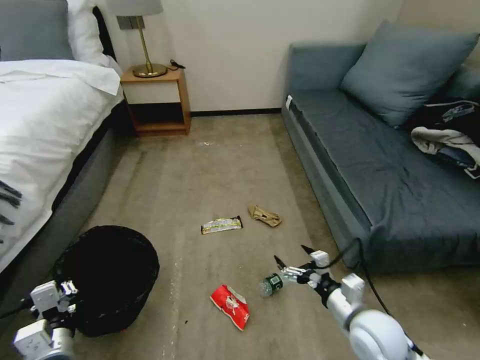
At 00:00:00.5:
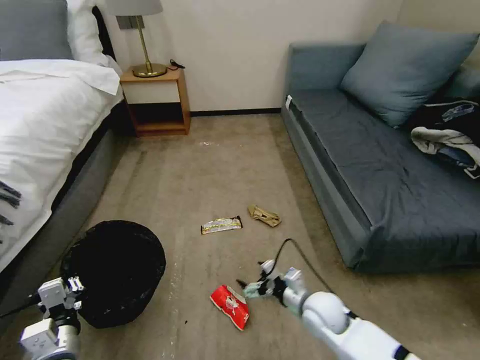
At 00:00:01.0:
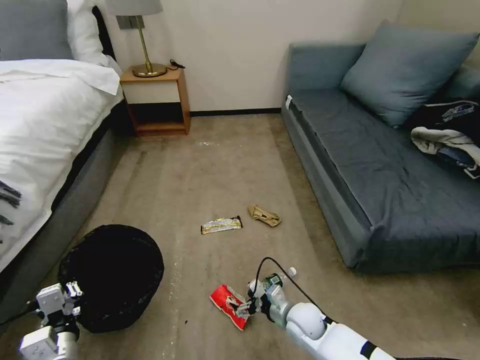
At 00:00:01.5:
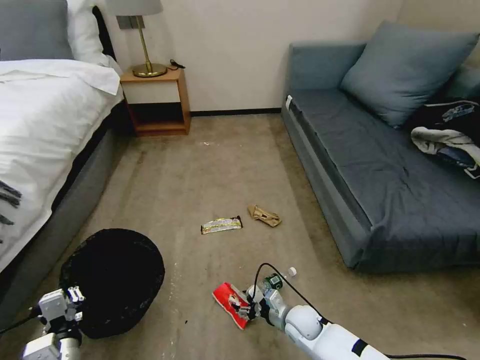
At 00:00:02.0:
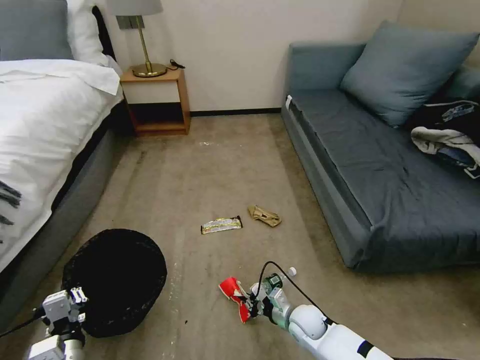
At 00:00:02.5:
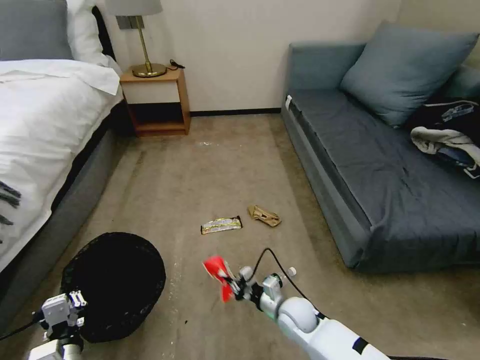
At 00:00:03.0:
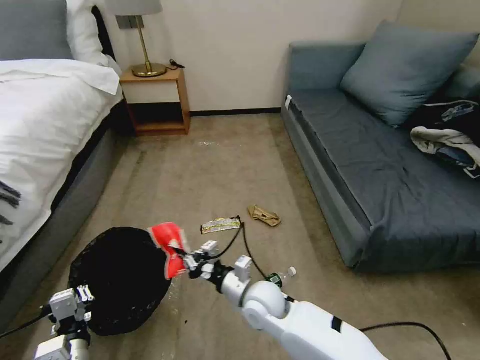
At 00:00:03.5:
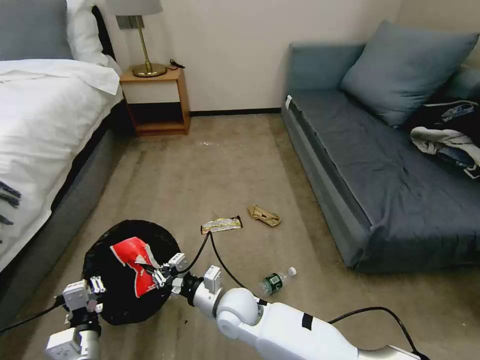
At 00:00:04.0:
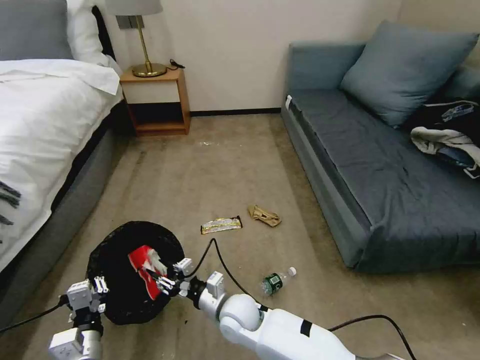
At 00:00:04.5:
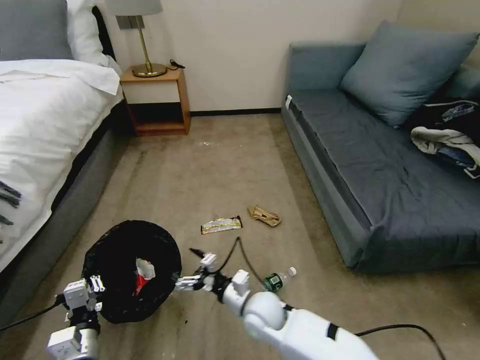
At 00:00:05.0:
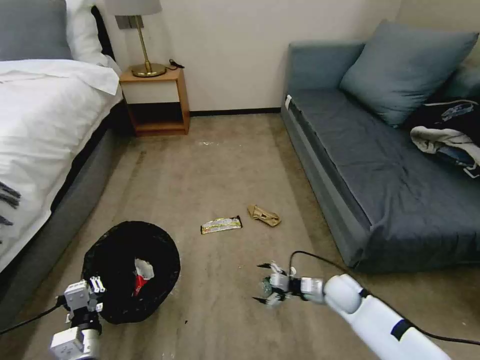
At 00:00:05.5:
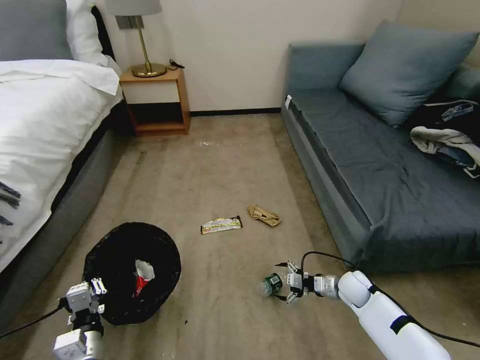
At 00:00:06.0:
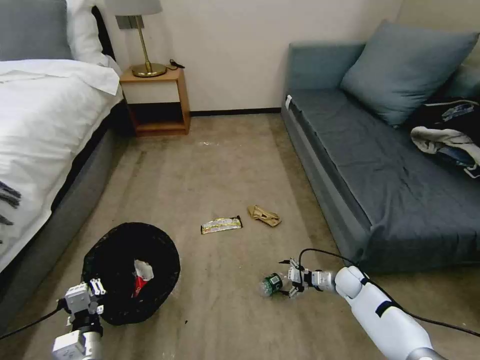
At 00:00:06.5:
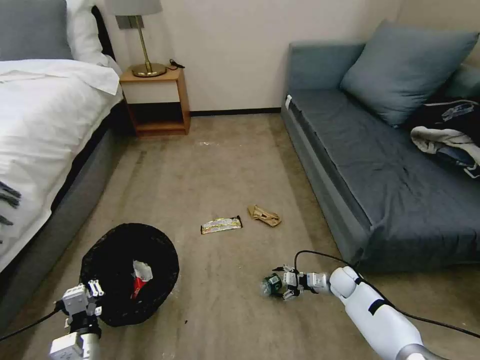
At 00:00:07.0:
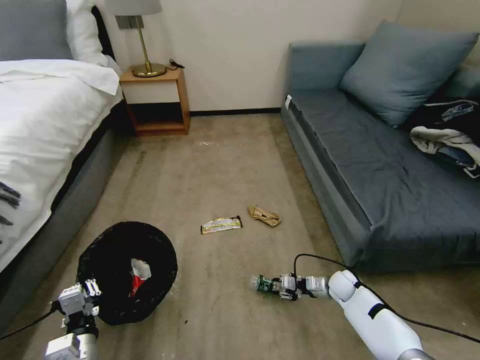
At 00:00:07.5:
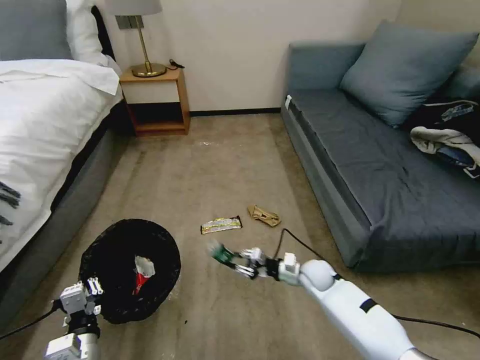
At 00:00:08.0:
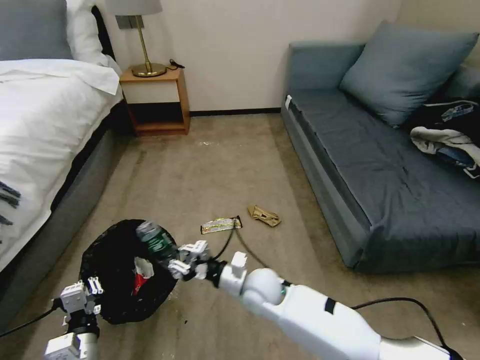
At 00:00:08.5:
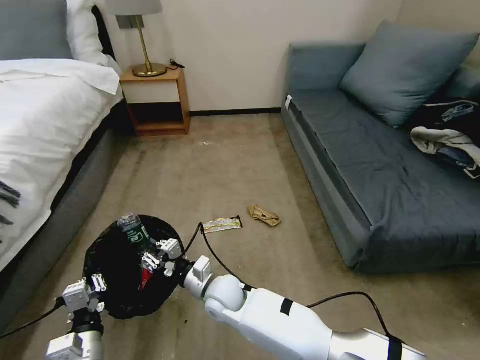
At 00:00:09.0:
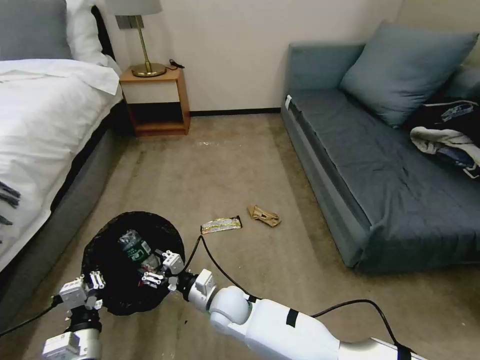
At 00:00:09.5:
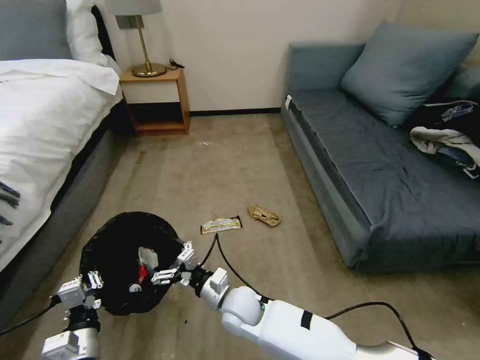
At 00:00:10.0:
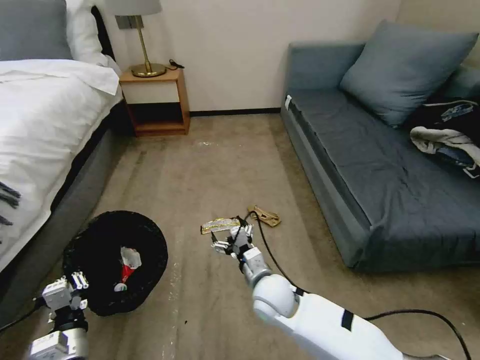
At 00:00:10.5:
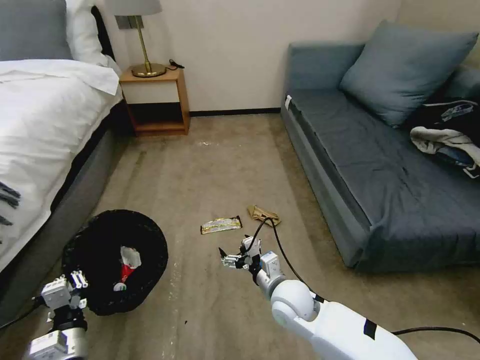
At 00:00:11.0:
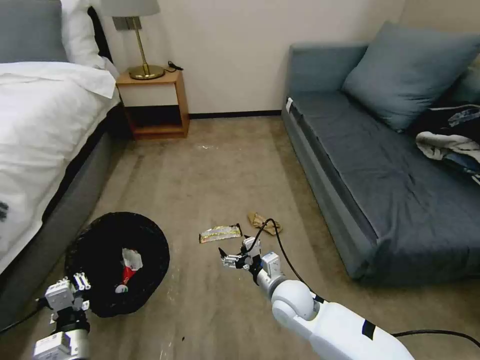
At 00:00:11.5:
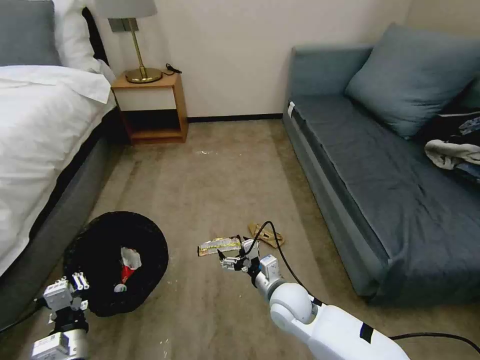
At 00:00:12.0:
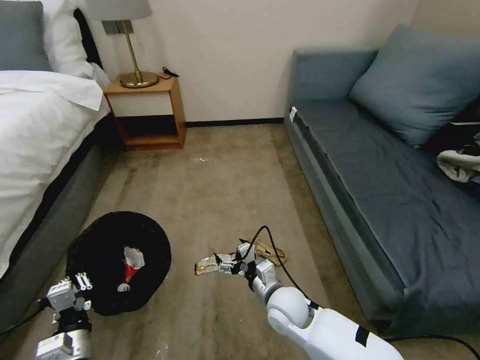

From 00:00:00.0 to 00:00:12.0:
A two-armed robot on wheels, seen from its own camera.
Task of the whole recording: Pick up the trash bin, then pick up the garbage on the floor and place it into the trash bin.
From 00:00:00.0 to 00:00:02.0: The right gripper goes some 20 cm downward and to the left, and closes.
From 00:00:02.0 to 00:00:04.0: The right gripper travels to the left and upward by some 20 cm.
From 00:00:04.0 to 00:00:06.0: The right gripper heads to the right, covering some 35 cm, and opens.
From 00:00:06.0 to 00:00:08.0: The right gripper goes about 35 cm to the left and upward, and closes.
From 00:00:08.0 to 00:00:10.0: The right gripper travels to the left and back again, roughly 10 cm each way, and opens its fingers.

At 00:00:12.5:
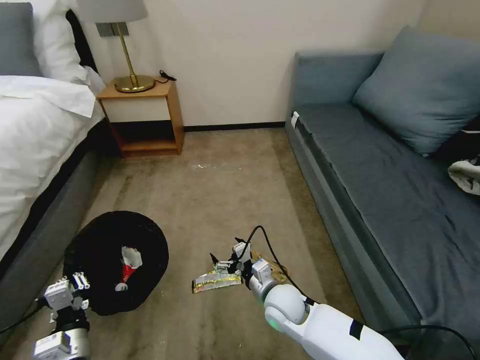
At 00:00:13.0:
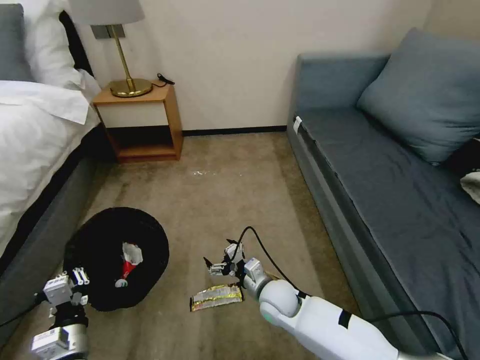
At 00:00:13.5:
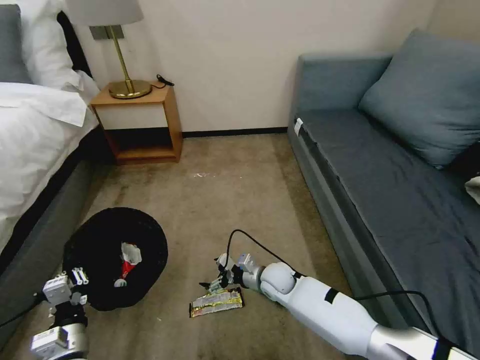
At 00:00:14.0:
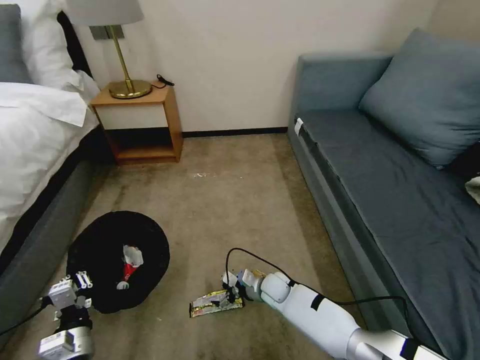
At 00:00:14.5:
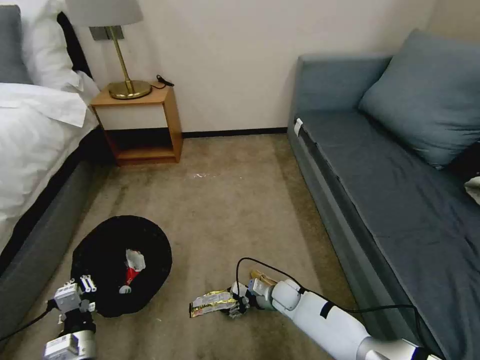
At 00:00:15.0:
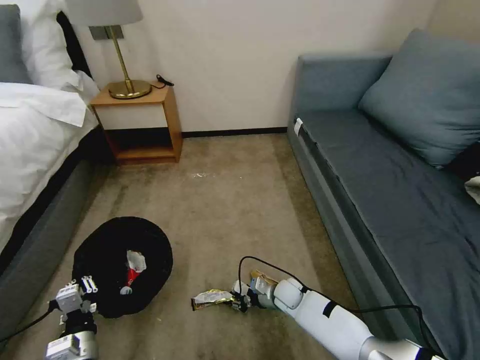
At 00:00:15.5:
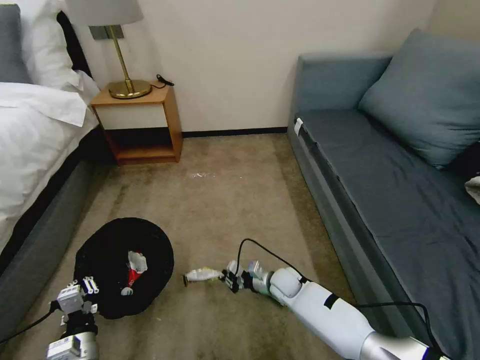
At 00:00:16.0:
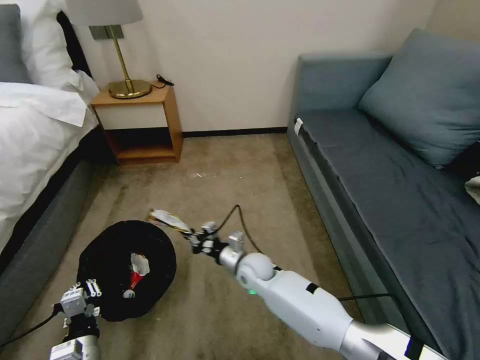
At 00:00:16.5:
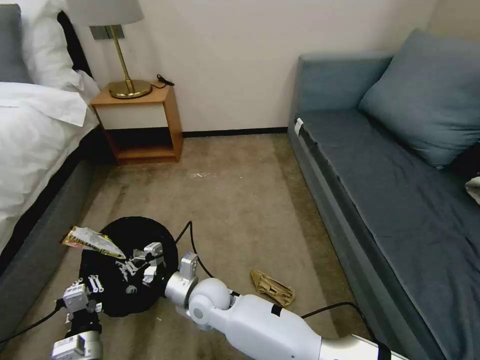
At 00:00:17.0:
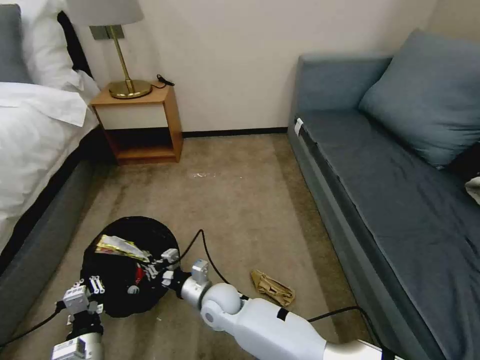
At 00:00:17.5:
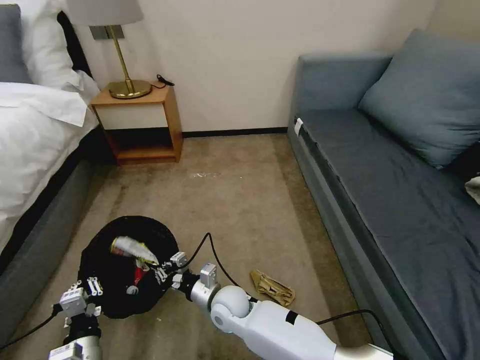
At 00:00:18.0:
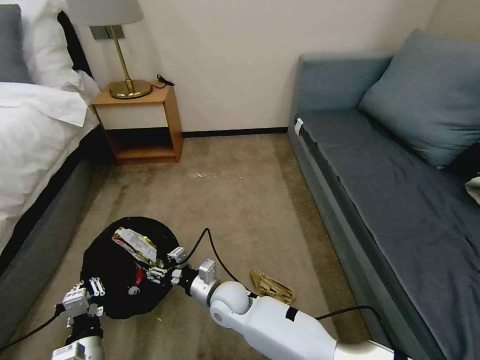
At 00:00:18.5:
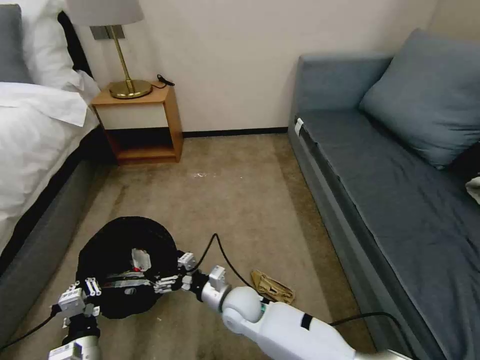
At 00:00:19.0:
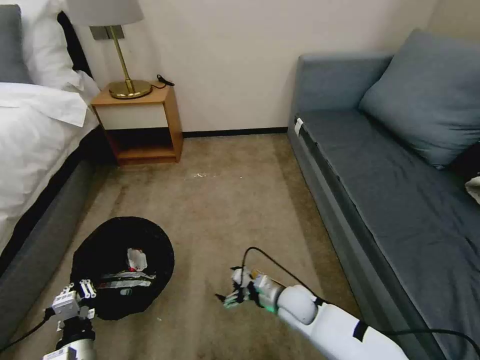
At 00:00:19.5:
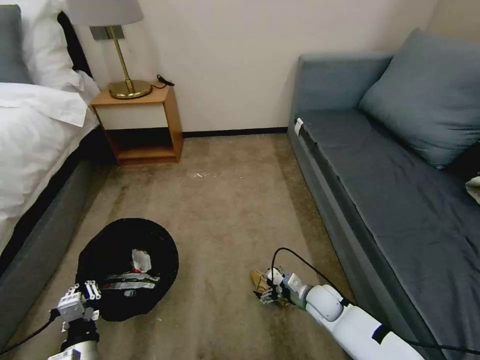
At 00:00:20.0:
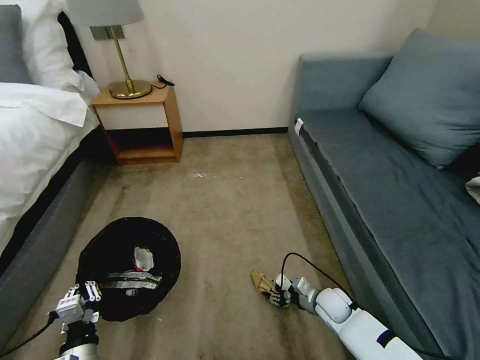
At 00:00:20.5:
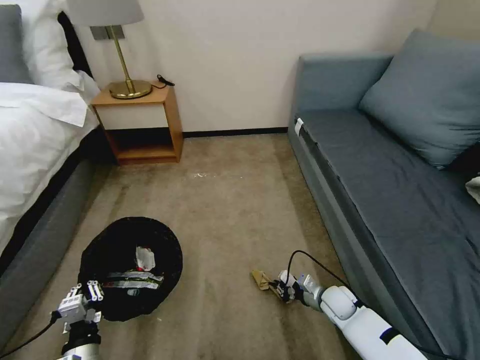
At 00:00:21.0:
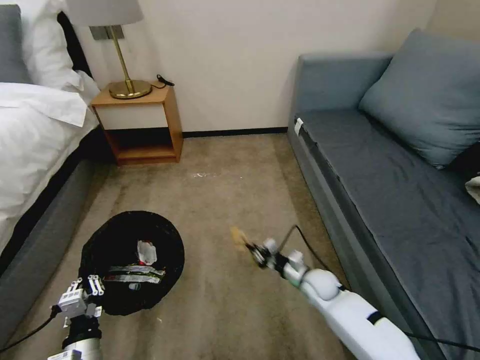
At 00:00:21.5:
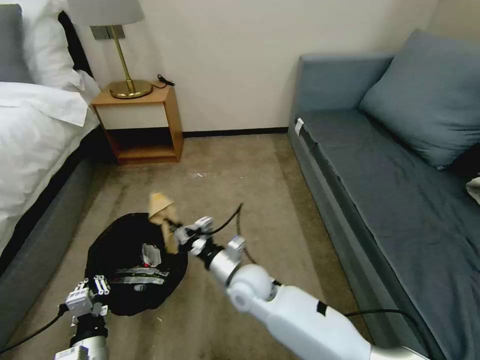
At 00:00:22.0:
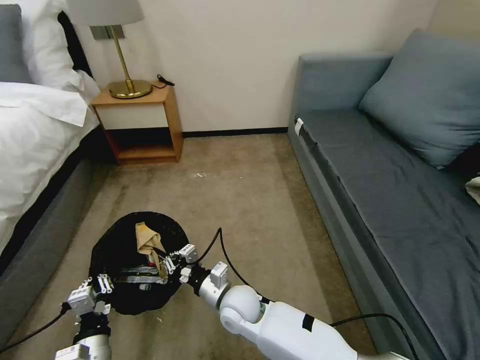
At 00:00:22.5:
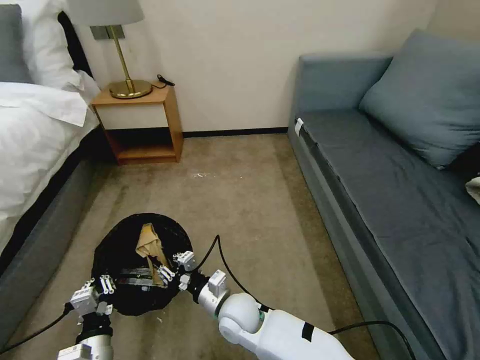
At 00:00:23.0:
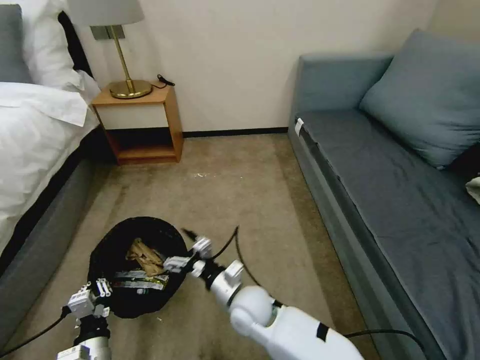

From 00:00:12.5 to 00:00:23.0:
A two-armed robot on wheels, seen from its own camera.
Task of the whole recording: Pick up the trash bin, then pick up the garbage on the floor and place it into the trash bin.
From 00:00:12.5 to 00:00:14.5: The right gripper goes approximately 15 cm downward and forward.
From 00:00:14.5 to 00:00:16.5: The right gripper moves to the left and upward, about 30 cm, and closes its fingers.
From 00:00:16.5 to 00:00:19.0: The right gripper moves to the right, about 20 cm, and opens its fingers.
From 00:00:19.0 to 00:00:21.0: The right gripper goes about 10 cm to the right and forward, and closes up.
From 00:00:21.0 to 00:00:23.0: The right gripper is displaced to the left, backward and upward by approximately 25 cm, and opens its fingers.

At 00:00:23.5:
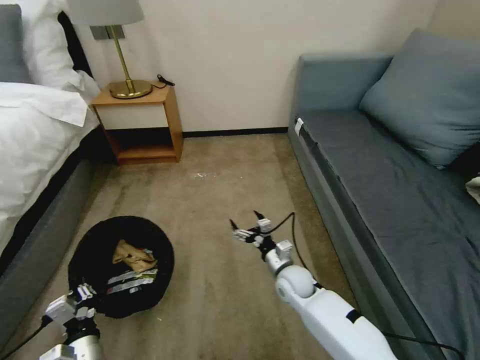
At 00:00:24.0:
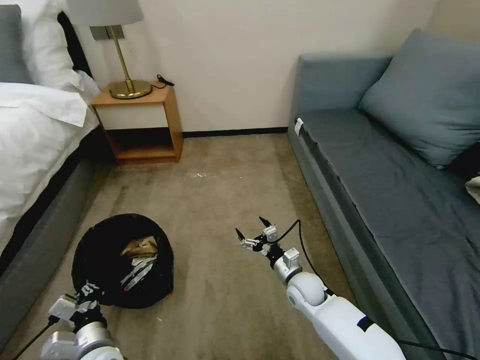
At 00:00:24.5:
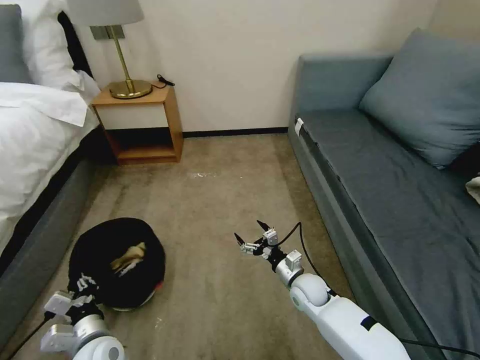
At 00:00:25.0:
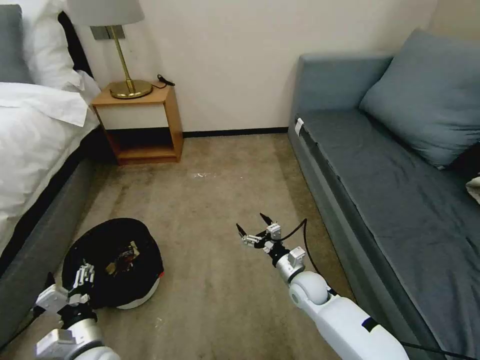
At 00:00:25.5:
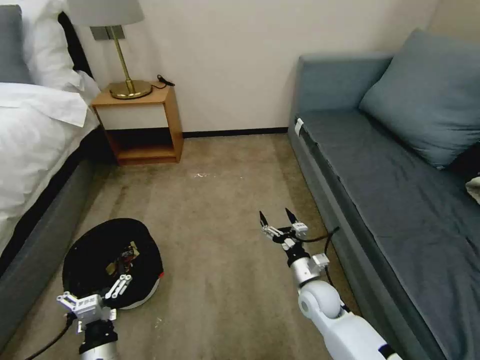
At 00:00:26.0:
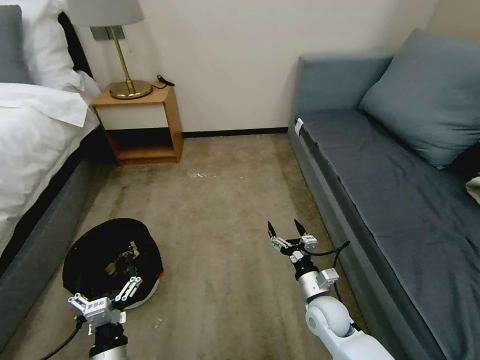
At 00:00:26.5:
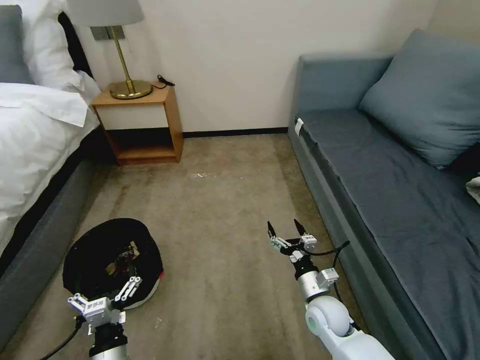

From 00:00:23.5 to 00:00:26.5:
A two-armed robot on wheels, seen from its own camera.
Task of the whole recording: Pick up the trash bin, then pick up the garbage on the floor and place it into the trash bin.
From 00:00:23.5 to 00:00:25.0: The left gripper opens.
From 00:00:25.0 to 00:00:26.5: The right gripper goes about 5 cm backward, while the left gripper heads to the right and backward, covering roughly 10 cm.
